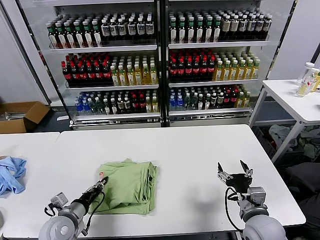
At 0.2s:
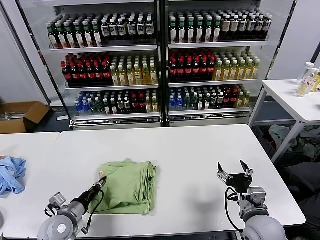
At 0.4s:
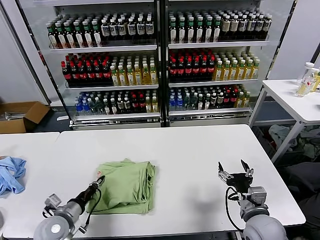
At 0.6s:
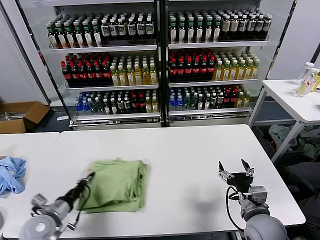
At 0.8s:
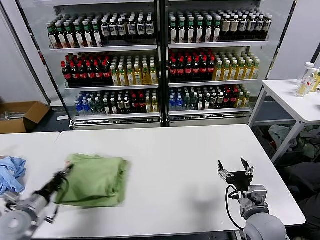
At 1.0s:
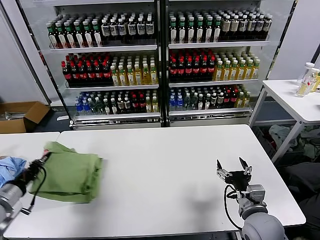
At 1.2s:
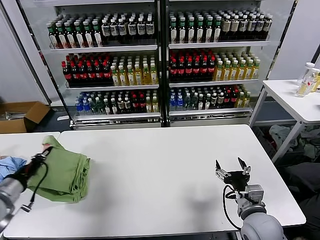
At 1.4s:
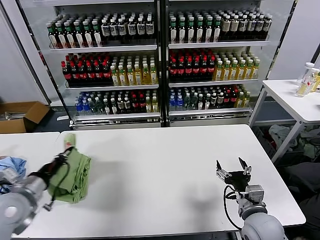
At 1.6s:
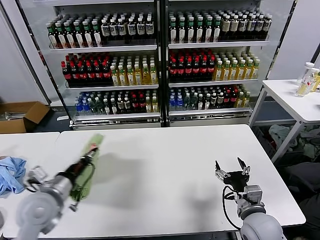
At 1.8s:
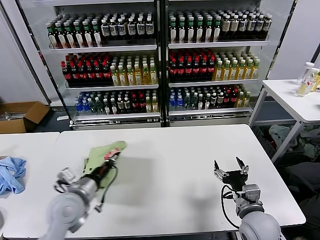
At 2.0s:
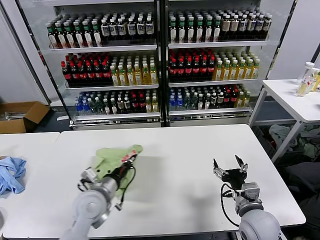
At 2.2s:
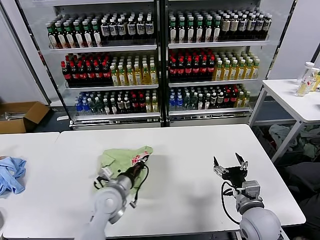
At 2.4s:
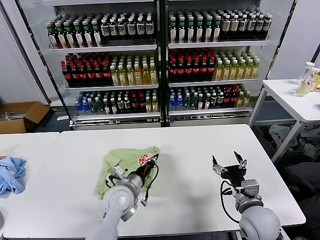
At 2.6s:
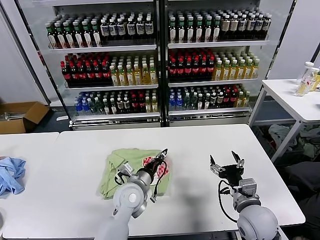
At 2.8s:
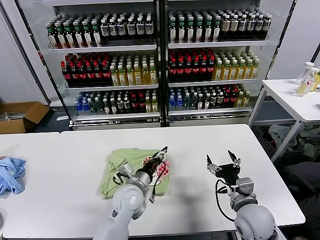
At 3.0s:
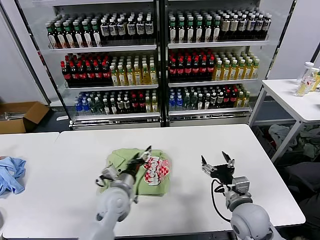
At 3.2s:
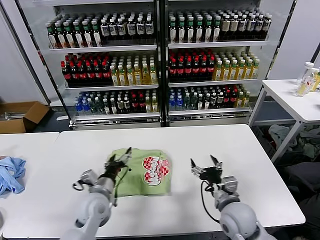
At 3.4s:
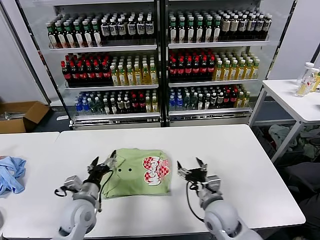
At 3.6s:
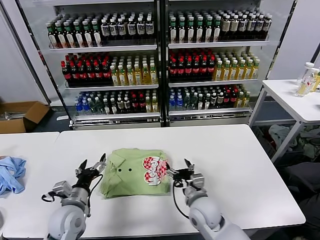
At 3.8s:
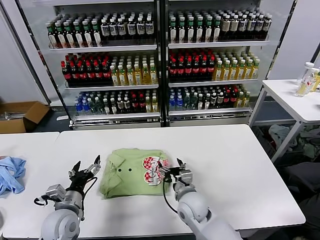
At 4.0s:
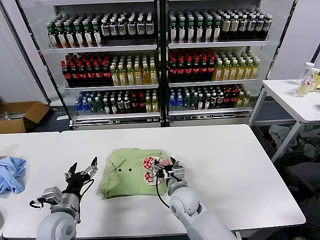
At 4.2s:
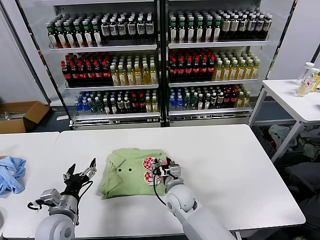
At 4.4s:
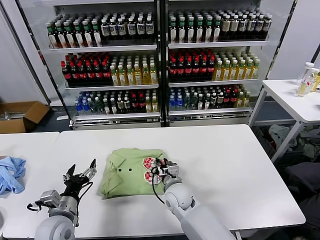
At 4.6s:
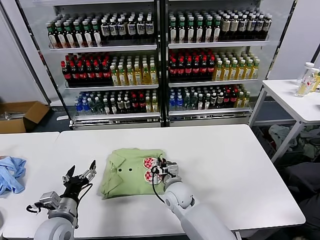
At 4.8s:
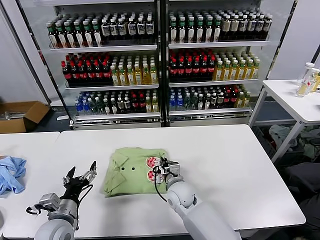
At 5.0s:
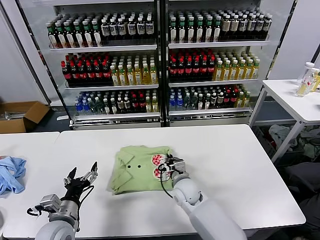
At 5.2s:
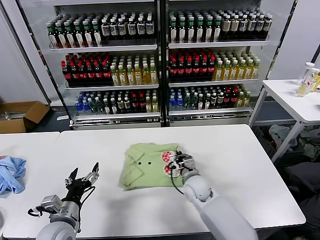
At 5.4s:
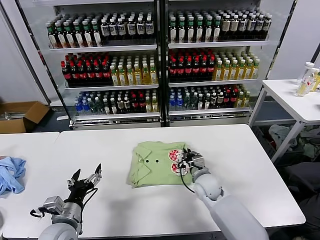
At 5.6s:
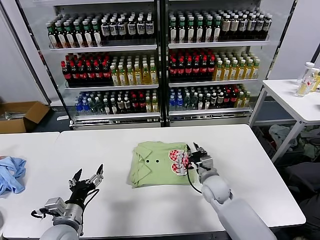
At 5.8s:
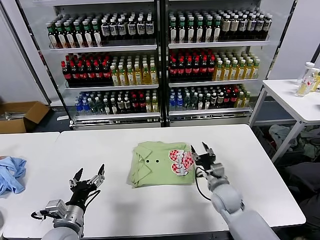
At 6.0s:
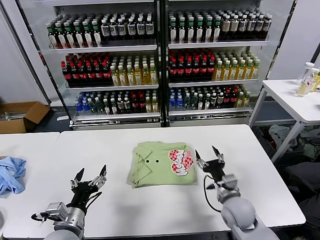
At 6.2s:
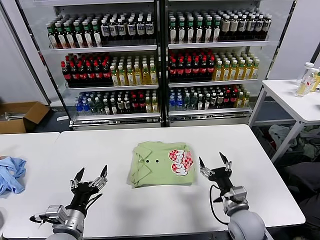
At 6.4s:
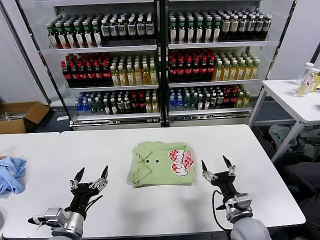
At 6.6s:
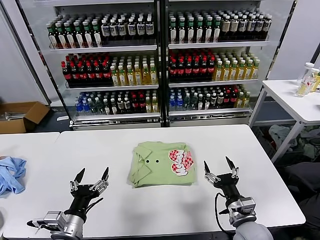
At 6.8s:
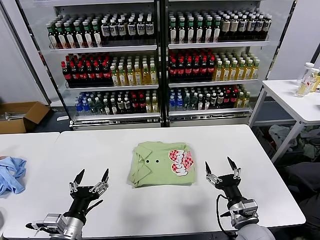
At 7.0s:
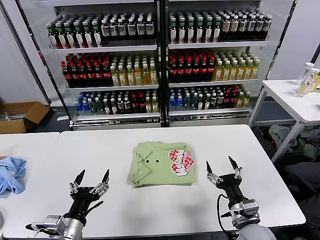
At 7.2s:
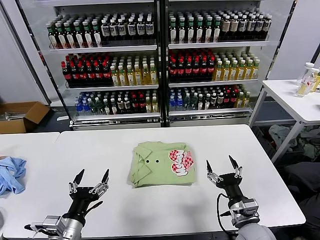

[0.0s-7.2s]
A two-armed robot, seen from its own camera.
Task of the whole recording: fold and organize the clothes.
Step, 0.0s to 2.6s: Flip the folded clothes over with left gripper.
Step, 2.8s to 5.6s: Drag the clothes to the center of the table.
0.0s to 1.4s: The left gripper travels upward and to the left by about 15 cm.
1.4s to 2.8s: The left gripper shifts roughly 30 cm to the right, and opens up.
2.8s to 4.4s: The left gripper heads to the left and backward, covering some 25 cm, and opens, while the right gripper goes approximately 25 cm to the left and forward, and closes up.
4.4s to 5.8s: The right gripper travels to the right by about 15 cm, and closes and opens again.
5.8s to 7.2s: The left gripper goes some 5 cm backward, while the right gripper heads backward, covering approximately 15 cm, and opens up.

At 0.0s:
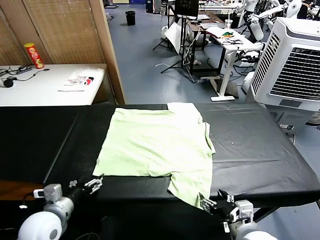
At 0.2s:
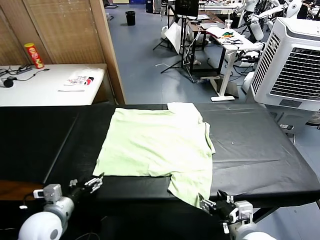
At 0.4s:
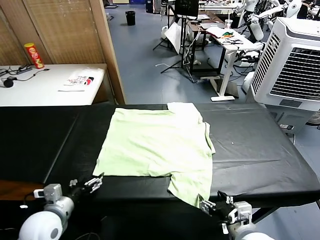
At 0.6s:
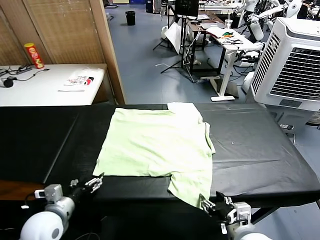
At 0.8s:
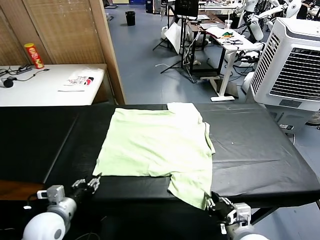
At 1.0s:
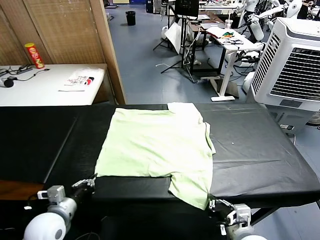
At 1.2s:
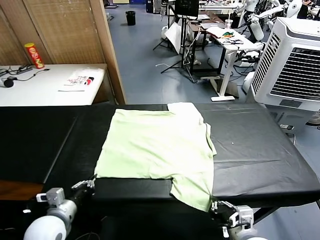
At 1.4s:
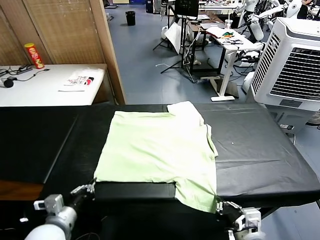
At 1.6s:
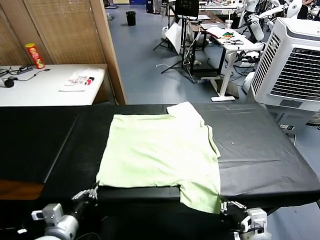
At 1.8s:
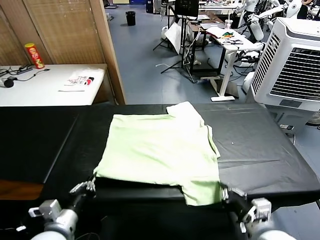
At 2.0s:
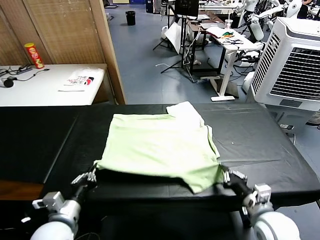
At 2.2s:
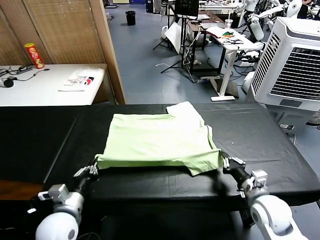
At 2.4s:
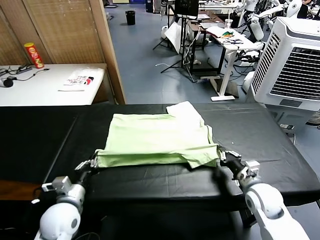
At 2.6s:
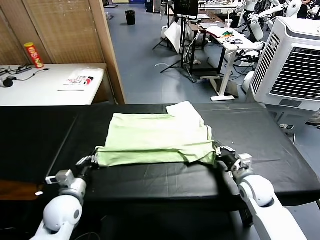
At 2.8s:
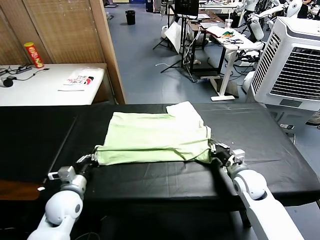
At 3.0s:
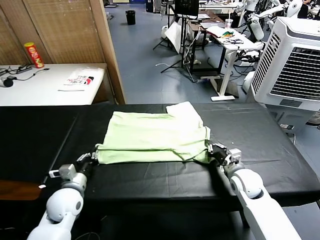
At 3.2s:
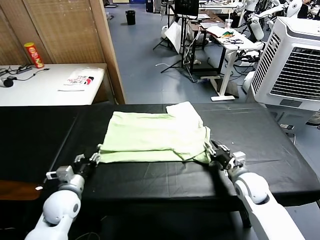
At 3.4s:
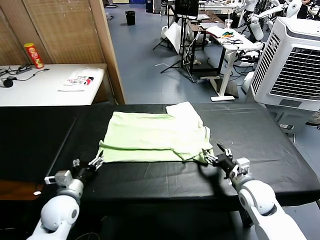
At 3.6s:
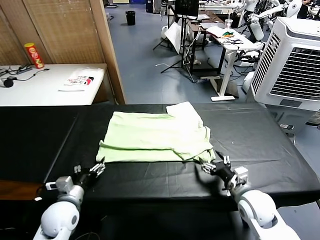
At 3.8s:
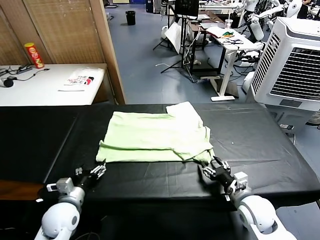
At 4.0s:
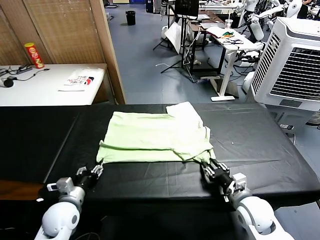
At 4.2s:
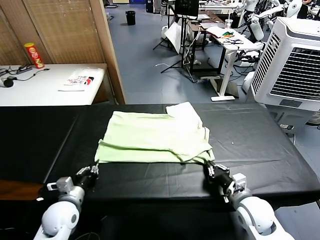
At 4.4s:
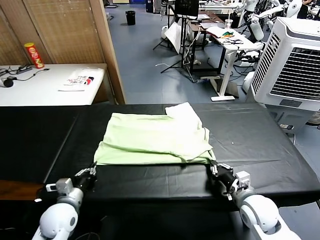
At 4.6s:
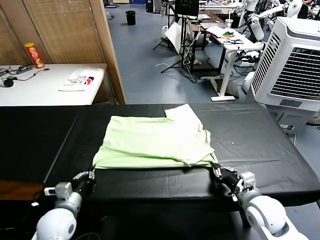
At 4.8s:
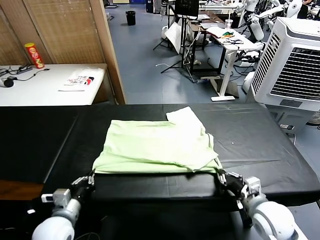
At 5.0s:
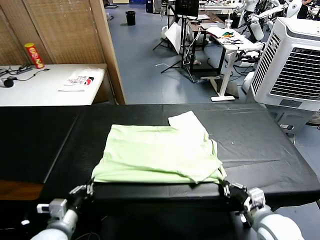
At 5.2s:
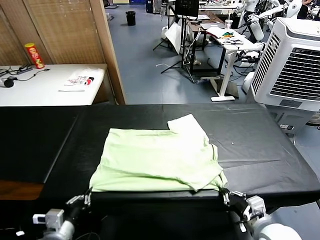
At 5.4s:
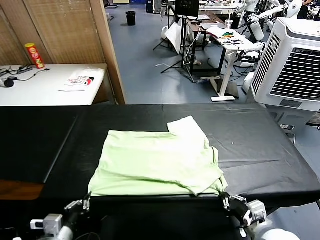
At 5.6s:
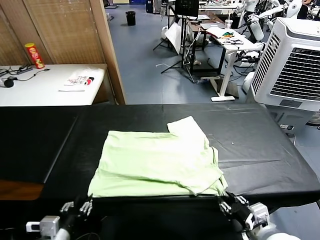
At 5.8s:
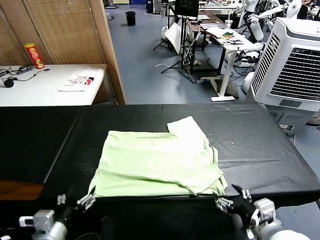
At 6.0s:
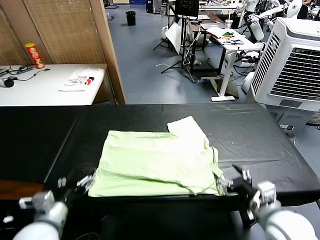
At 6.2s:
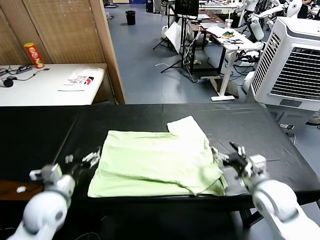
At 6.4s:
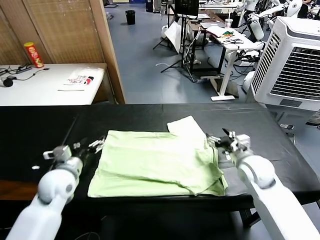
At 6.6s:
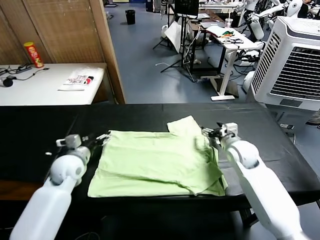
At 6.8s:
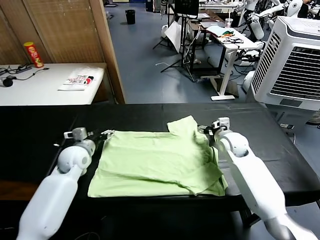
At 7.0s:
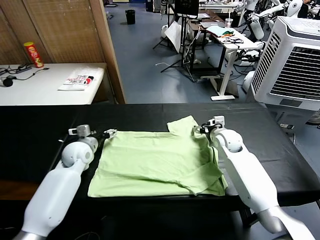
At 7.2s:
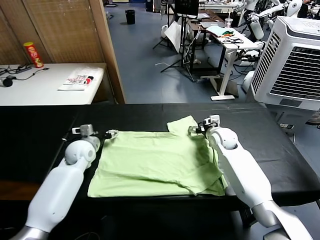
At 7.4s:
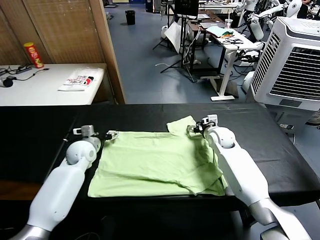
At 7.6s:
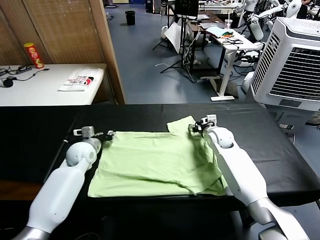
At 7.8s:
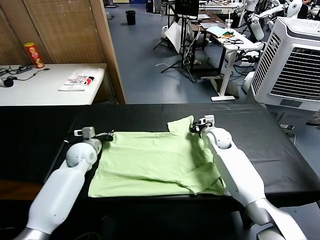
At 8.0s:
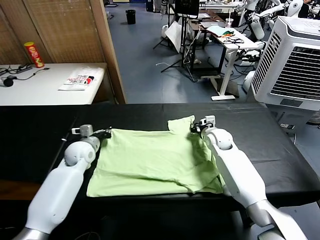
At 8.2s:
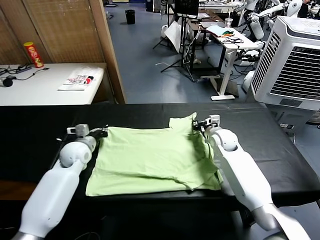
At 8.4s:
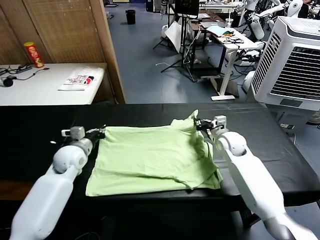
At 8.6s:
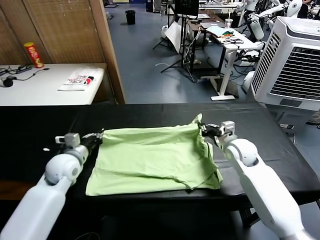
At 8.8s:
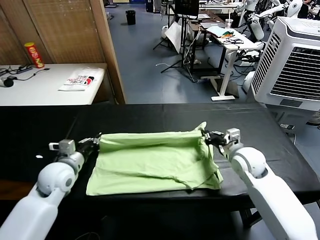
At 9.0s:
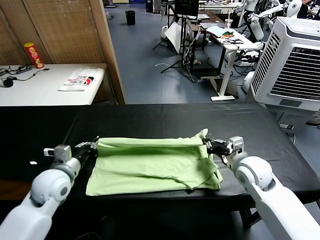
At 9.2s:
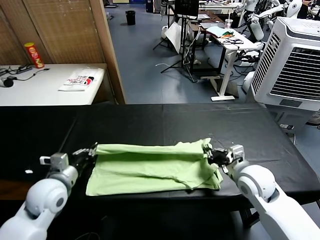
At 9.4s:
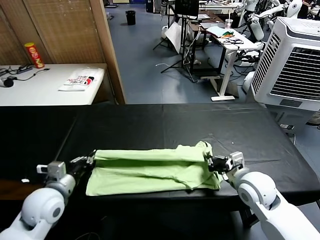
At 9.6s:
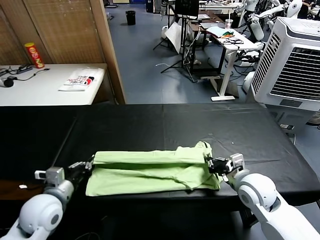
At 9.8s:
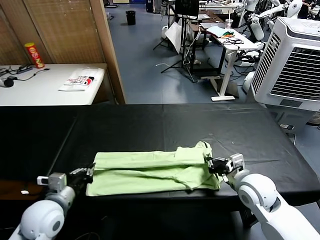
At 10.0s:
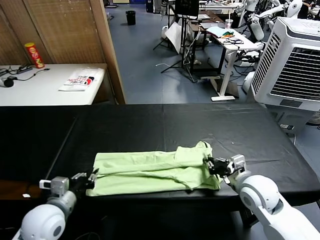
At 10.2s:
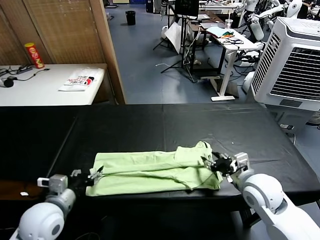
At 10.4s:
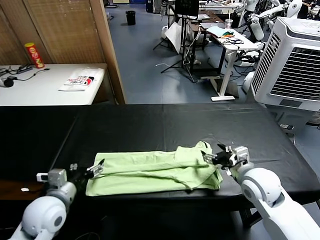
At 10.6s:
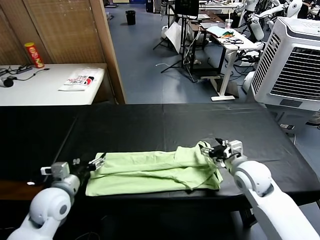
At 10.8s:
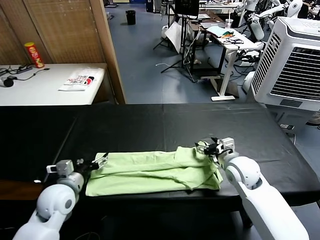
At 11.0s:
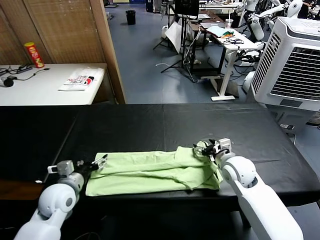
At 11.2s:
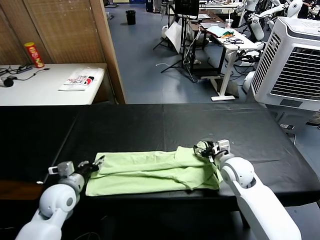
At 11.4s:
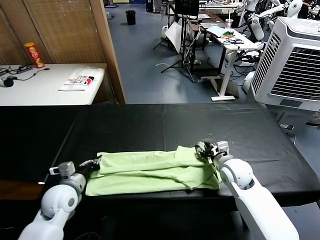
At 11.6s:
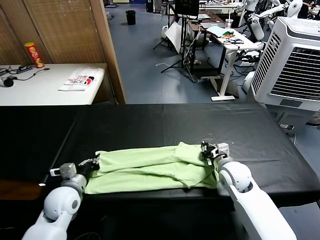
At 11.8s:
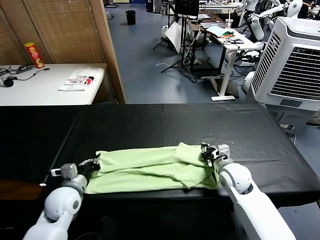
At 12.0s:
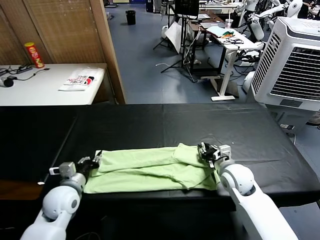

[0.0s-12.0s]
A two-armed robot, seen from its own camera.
Task of the whole recording: fold and organize the clothes.
Step, 0.0s to 1.0s: use both grippers simultaneously to clamp the lower edge of the clothing fabric.
Step, 1.4s to 3.2s: use both grippers to drag the lower edge of the fabric forward and fold it over the upper edge.
Step, 3.4s to 5.6s: Drag the clothes downward with both gripper.
Step, 5.8s to 7.6s: use both grippers simultaneously to clamp the upper edge of the clothing fabric.
Step, 8.0s to 10.2s: use both grippers to drag the upper edge of the fabric backward and fold it over the lower edge.
1.6s to 3.0s: The two grippers go approximately 15 cm forward. The right gripper opens.
3.0s to 4.4s: The left gripper opens, then closes again. Meanwhile the right gripper is displaced backward by approximately 10 cm, and closes up.
4.4s to 6.0s: The left gripper is displaced upward and backward by about 10 cm, and opens up, while the right gripper travels upward by approximately 5 cm, reaches roughly 10 cm backward, then returns, and opens up.
6.0s to 7.6s: The grippers both shift forward by approximately 25 cm. The left gripper closes; the right gripper closes its fingers.
7.6s to 9.0s: The right gripper shifts some 20 cm backward. The left gripper moves backward and upward, about 15 cm.
9.0s to 10.4s: The left gripper is displaced backward by about 5 cm, and opens. Meanwhile the right gripper opens.
10.4s to 12.0s: The two grippers go some 5 cm downward. The right gripper closes and opens again. The left gripper closes up.

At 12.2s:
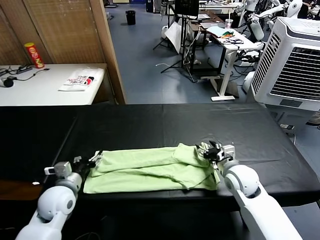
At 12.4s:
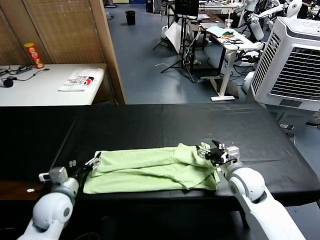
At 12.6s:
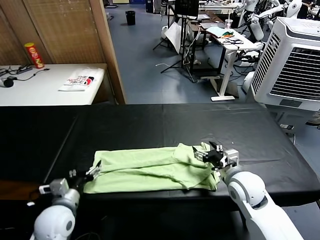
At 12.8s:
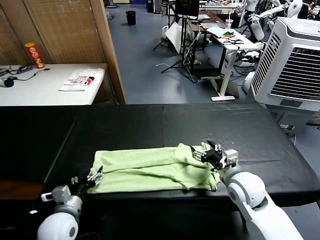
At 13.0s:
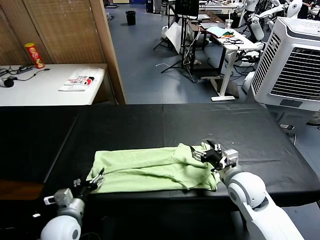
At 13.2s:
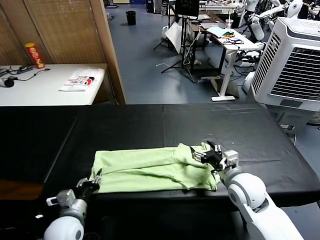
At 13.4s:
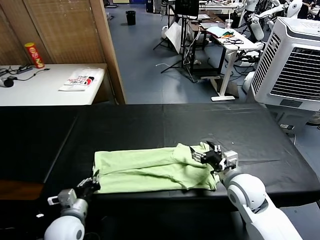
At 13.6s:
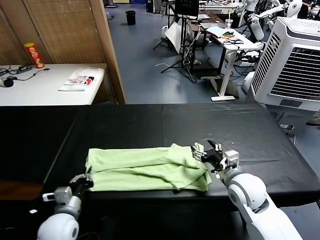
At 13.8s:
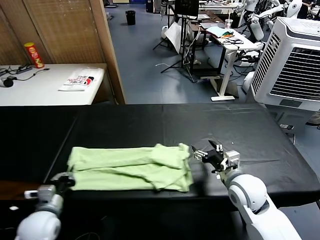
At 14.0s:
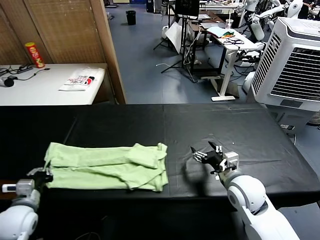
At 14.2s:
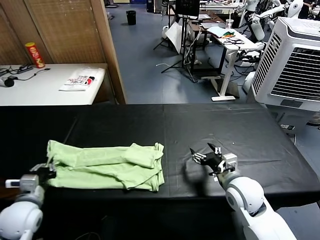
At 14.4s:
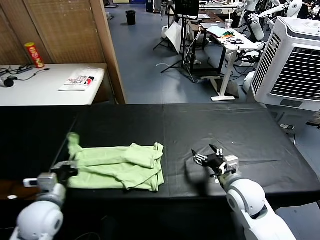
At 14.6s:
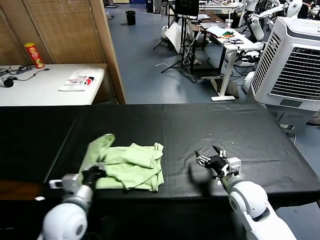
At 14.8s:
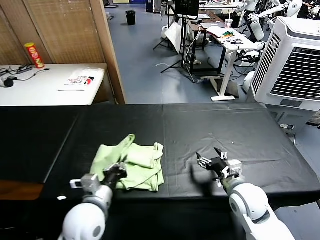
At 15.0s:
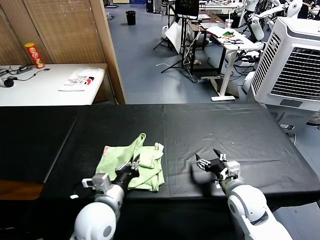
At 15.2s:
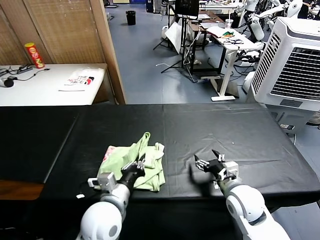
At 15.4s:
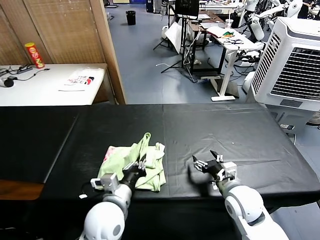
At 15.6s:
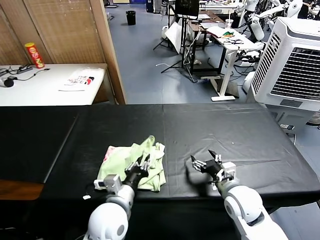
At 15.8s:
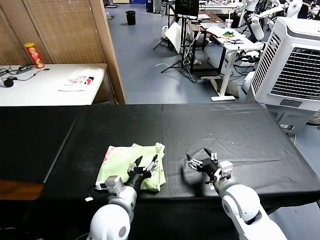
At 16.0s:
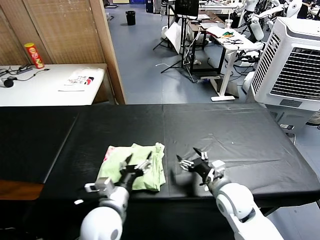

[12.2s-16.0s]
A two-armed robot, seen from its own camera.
Task of the whole recording: fold and organize the clothes.
Step, 13.6s to 15.6s: use the left gripper to drag the left edge of the fabric to the left and folds it over the right edge.
12.2s to 13.4s: The left gripper shifts some 5 cm backward, and closes its fingers.
13.4s to 14.8s: The left gripper heads to the right and upward, covering approximately 10 cm.
14.8s to 16.0s: The left gripper opens its fingers.
